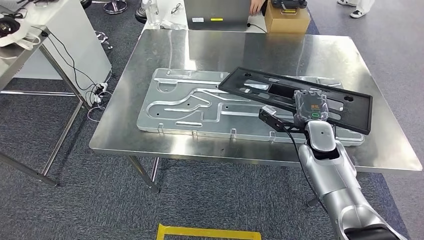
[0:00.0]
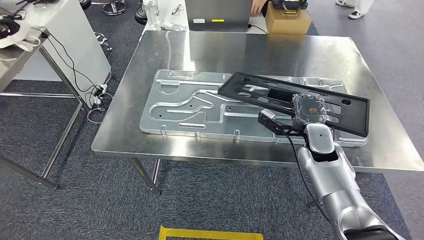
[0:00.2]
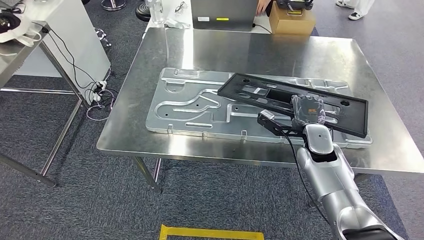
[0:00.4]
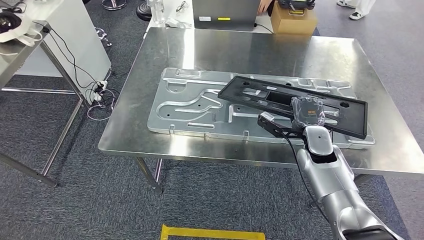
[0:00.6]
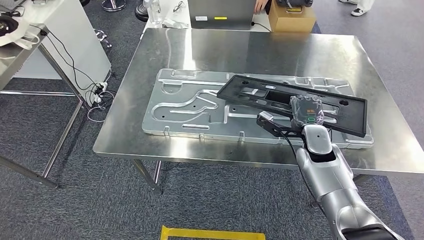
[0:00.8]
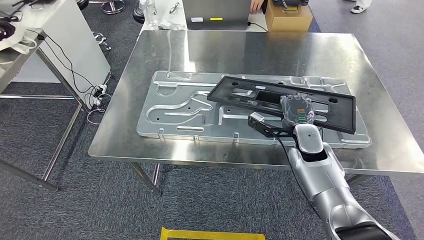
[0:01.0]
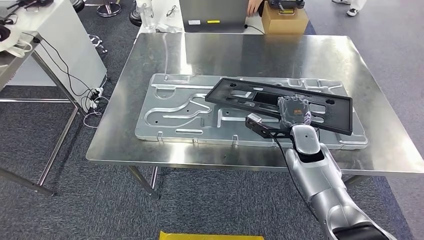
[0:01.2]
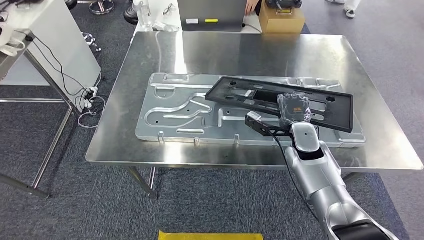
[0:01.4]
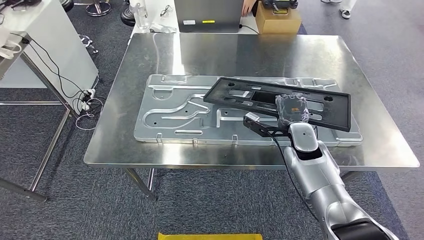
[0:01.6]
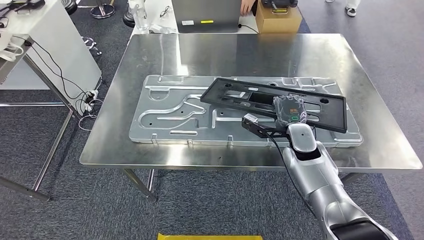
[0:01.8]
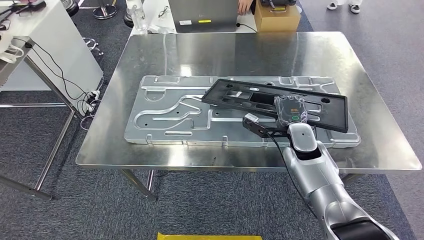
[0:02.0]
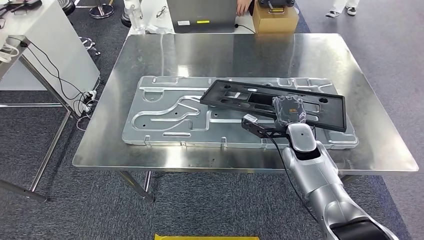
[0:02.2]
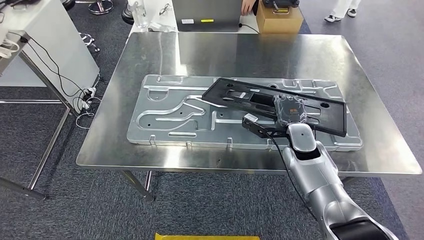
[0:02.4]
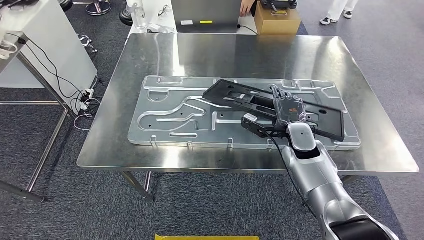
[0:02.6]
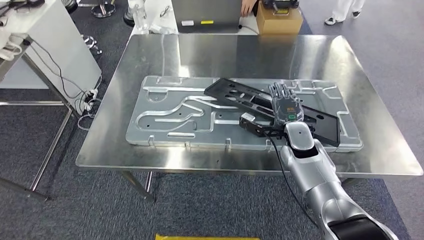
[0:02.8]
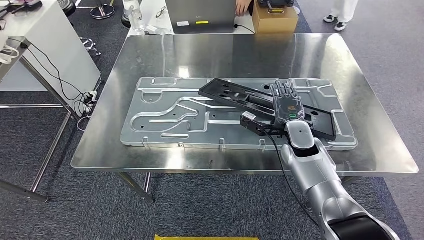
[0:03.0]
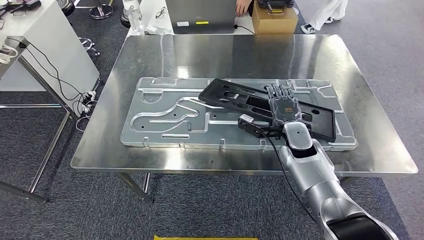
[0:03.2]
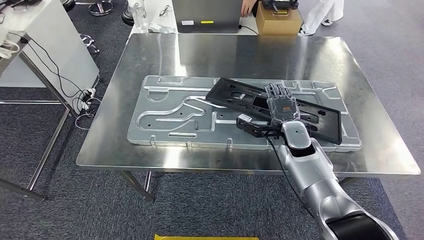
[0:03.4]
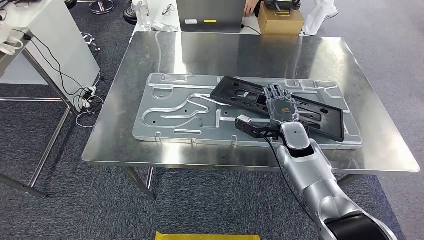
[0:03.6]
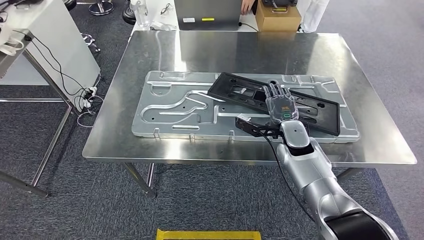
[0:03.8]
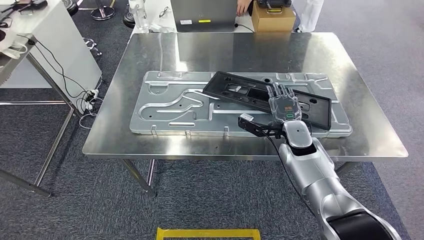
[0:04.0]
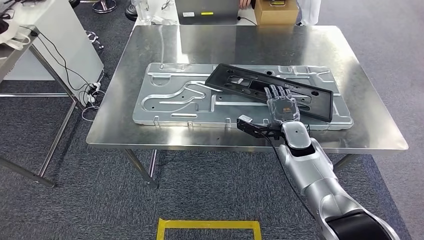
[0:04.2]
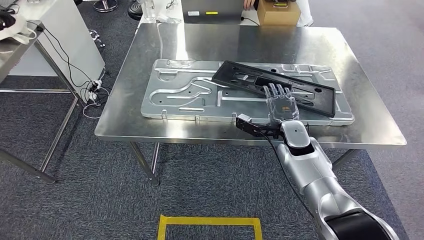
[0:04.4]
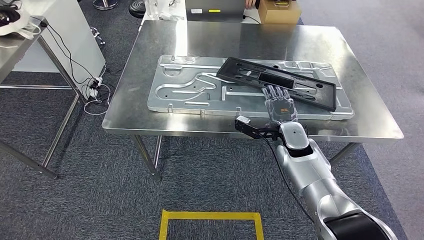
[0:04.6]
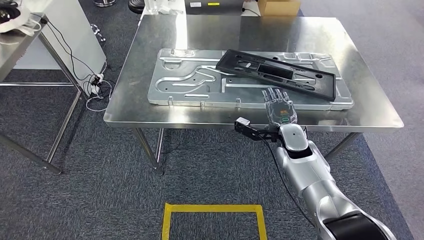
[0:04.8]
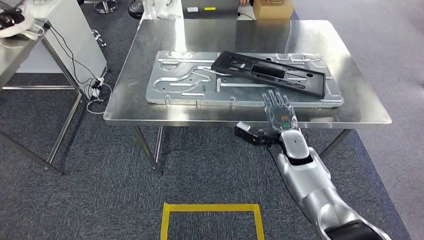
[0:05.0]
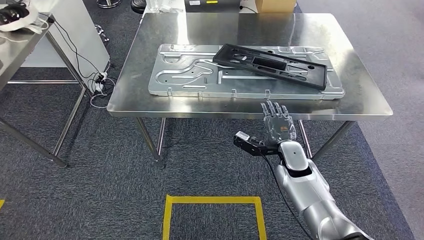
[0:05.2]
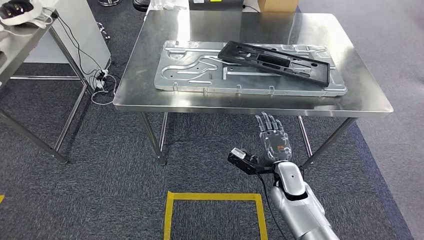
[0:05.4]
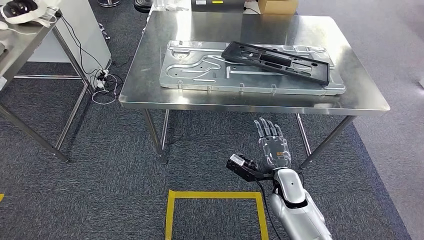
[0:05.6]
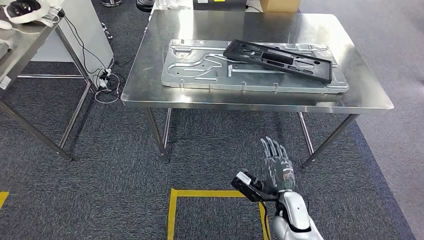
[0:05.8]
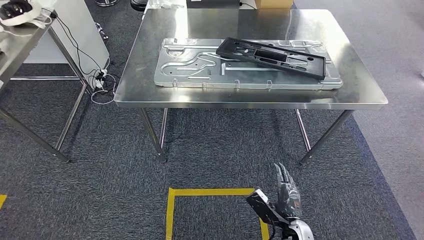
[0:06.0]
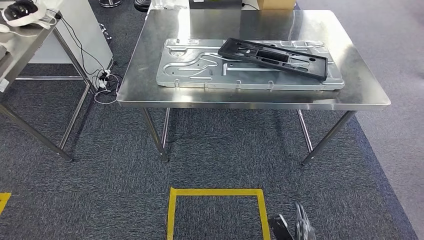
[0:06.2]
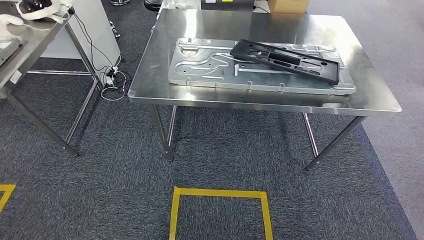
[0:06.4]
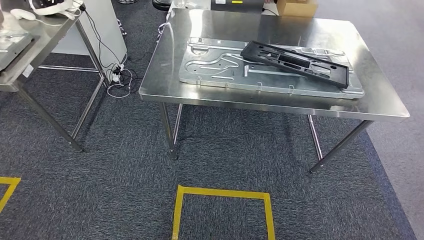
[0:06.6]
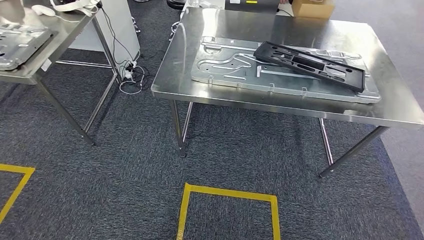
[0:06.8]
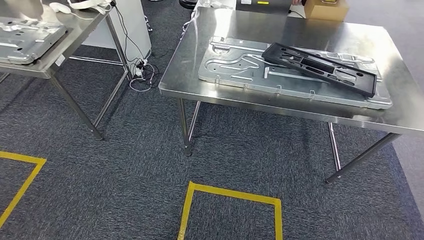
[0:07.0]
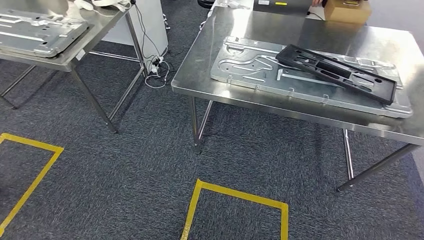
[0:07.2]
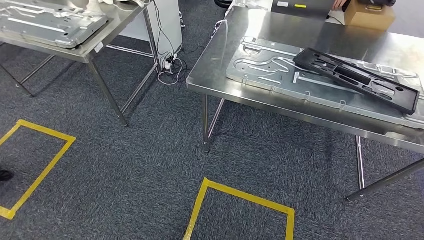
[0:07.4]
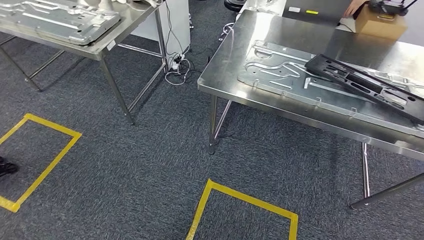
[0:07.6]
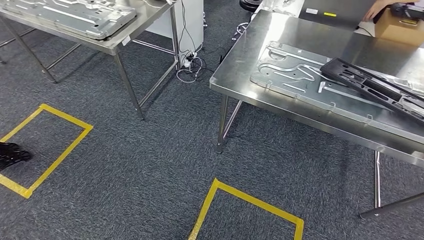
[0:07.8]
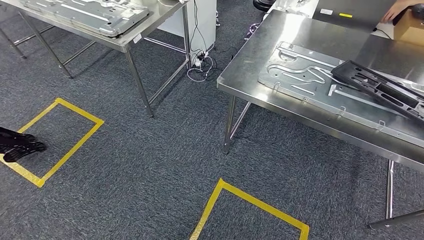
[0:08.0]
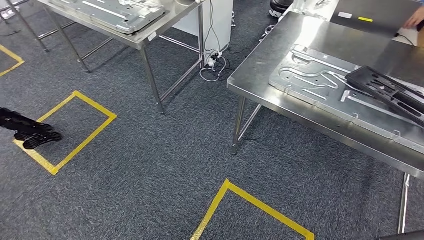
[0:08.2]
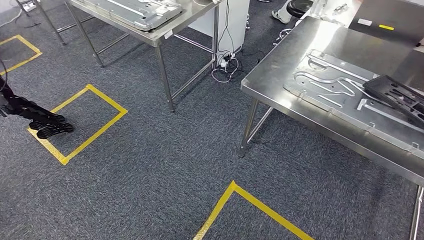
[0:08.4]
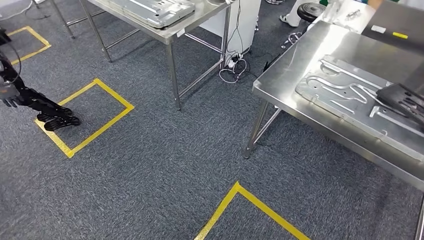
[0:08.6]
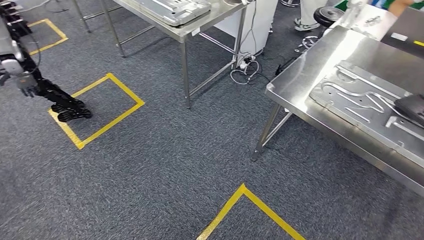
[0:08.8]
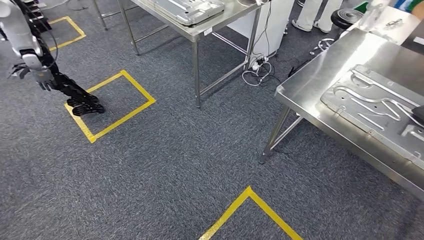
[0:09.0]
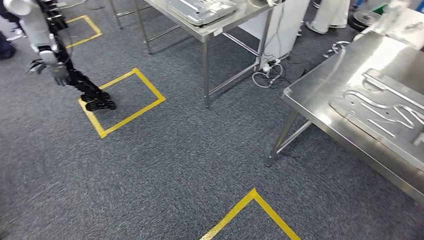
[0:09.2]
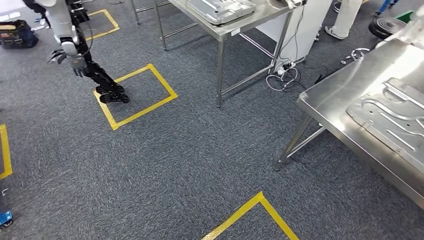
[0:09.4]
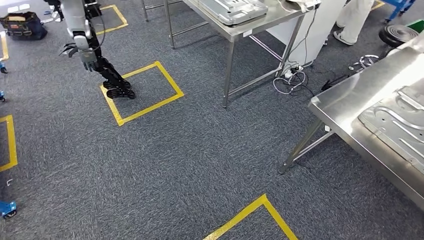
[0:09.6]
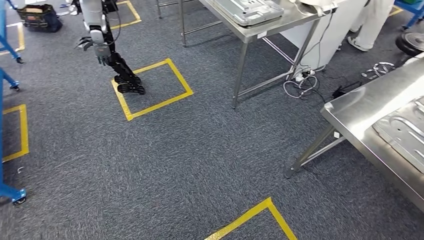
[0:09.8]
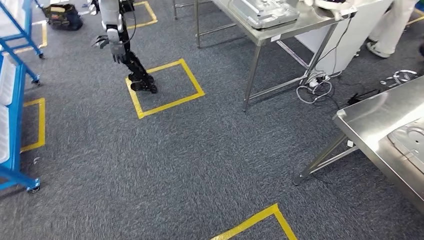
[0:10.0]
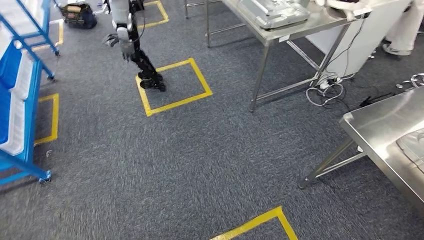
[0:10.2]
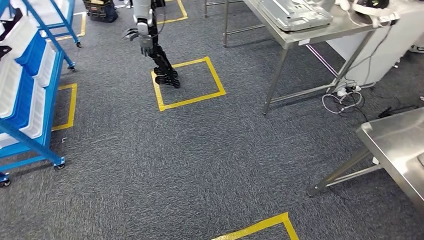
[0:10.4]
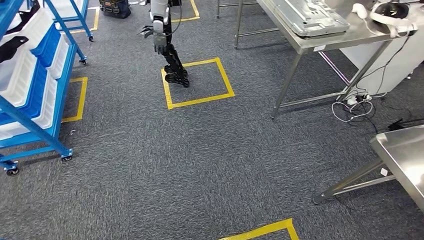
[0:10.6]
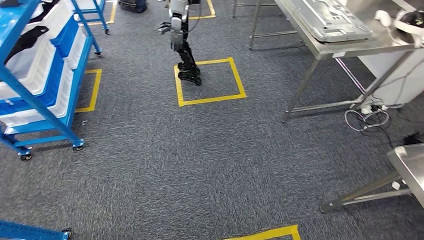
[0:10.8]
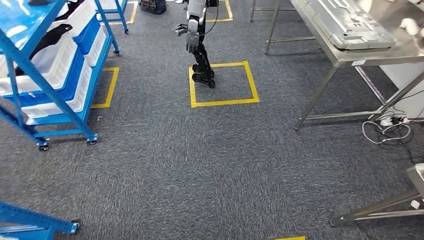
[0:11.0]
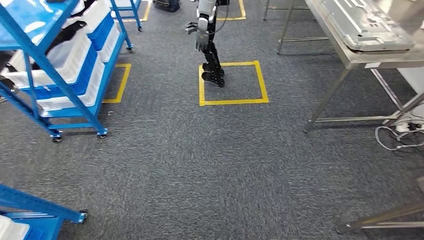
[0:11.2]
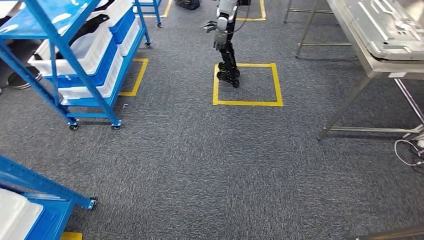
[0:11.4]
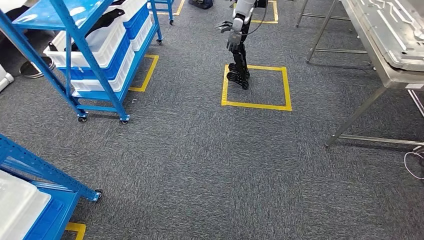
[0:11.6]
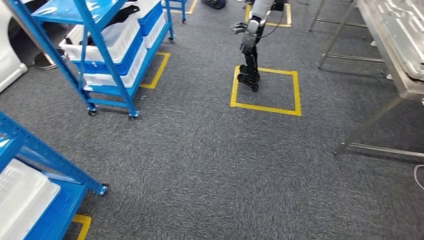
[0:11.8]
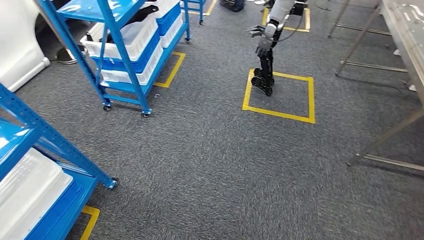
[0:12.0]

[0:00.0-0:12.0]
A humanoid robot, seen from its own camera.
Step, 0:00.0 to 0:05.8: Insert the large material into the corresponding slot on the workbench.

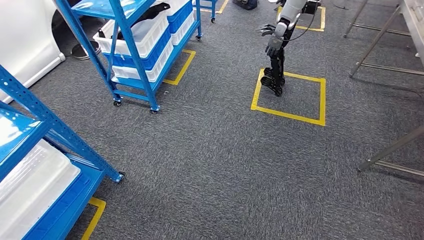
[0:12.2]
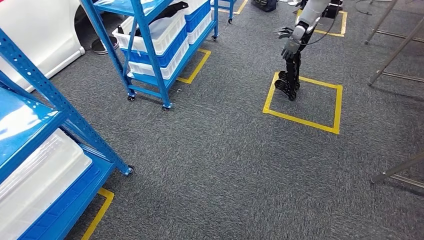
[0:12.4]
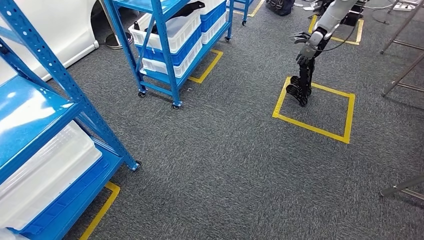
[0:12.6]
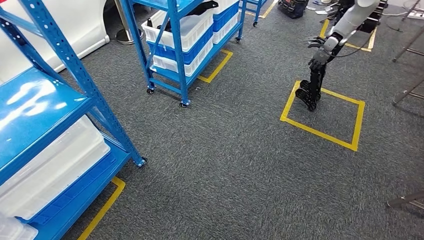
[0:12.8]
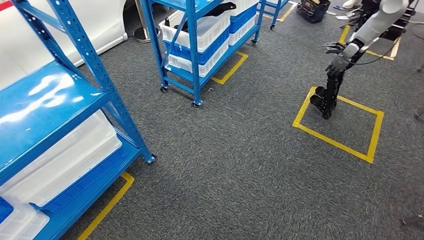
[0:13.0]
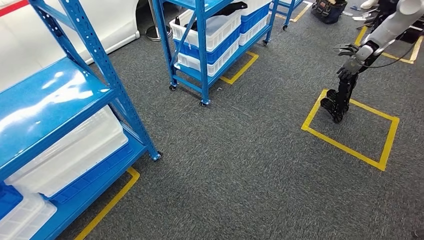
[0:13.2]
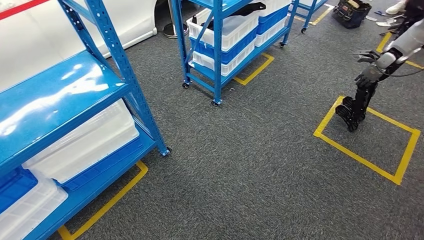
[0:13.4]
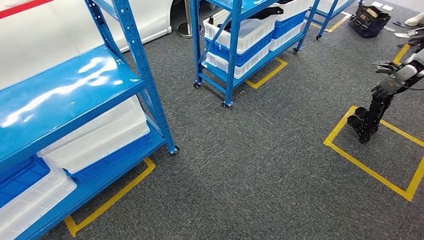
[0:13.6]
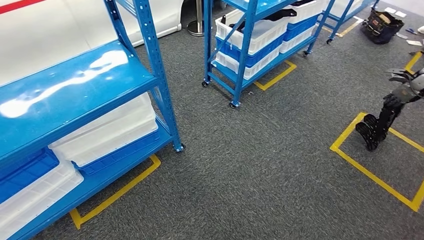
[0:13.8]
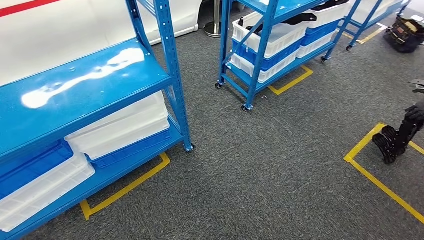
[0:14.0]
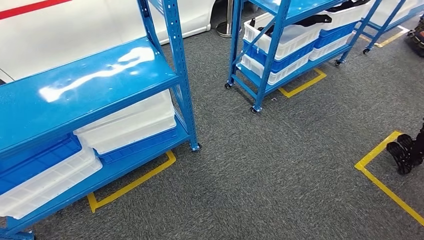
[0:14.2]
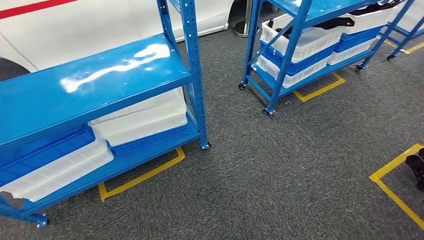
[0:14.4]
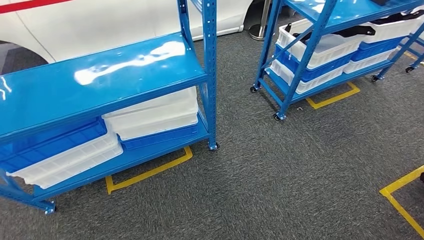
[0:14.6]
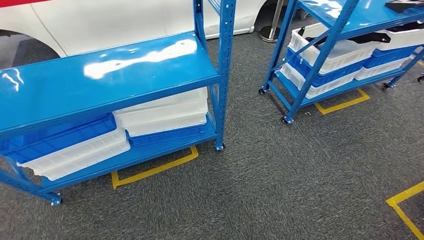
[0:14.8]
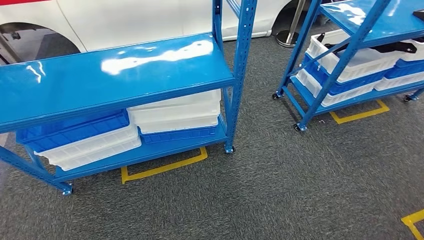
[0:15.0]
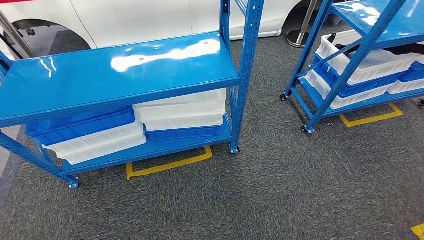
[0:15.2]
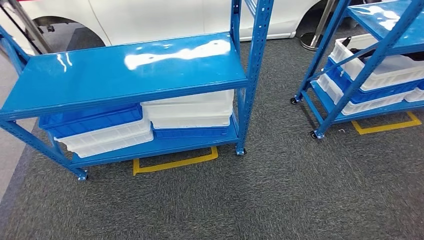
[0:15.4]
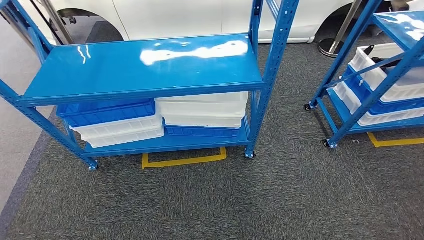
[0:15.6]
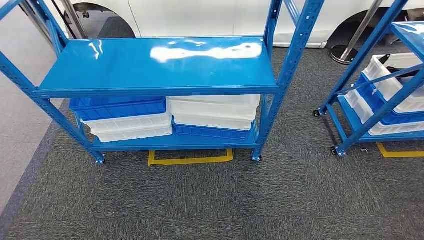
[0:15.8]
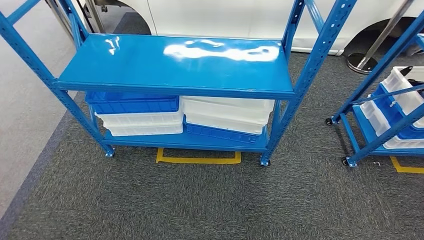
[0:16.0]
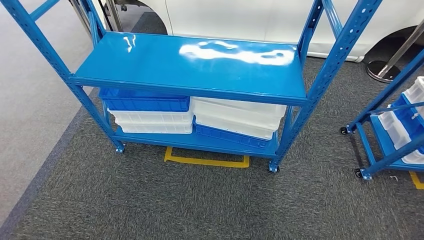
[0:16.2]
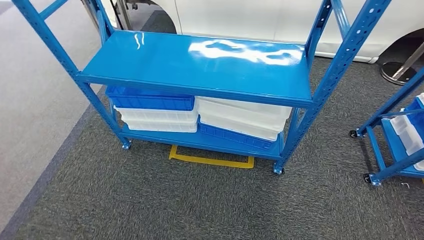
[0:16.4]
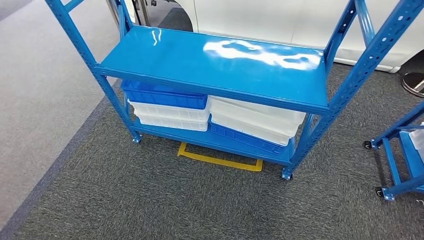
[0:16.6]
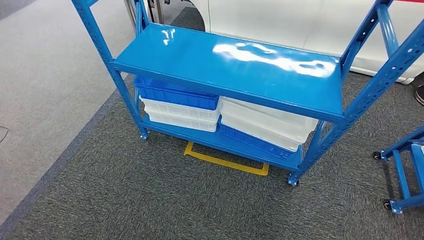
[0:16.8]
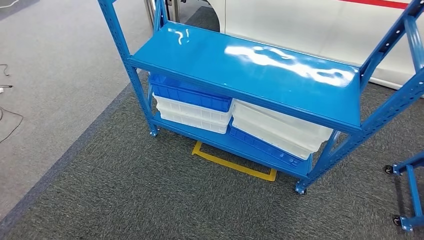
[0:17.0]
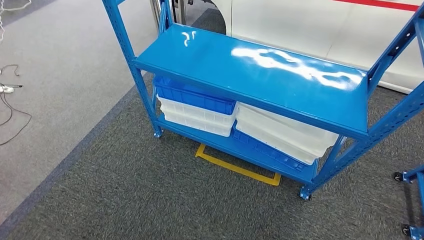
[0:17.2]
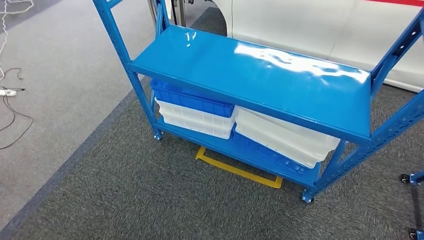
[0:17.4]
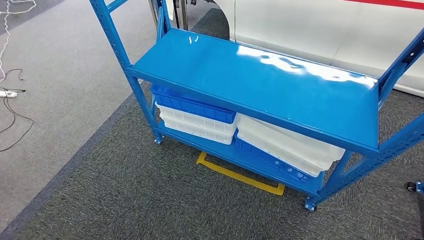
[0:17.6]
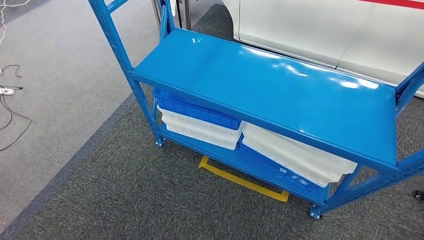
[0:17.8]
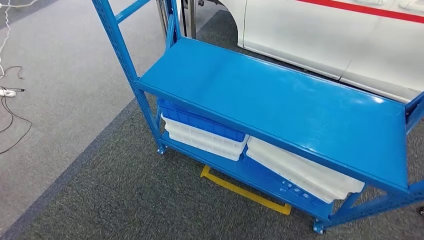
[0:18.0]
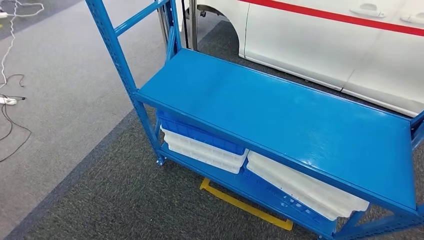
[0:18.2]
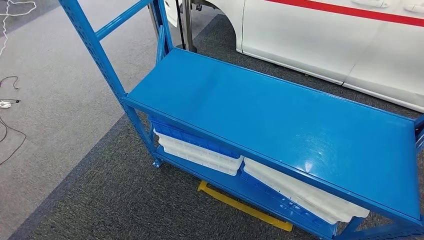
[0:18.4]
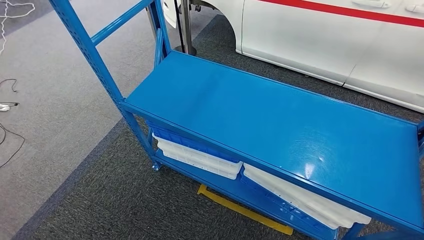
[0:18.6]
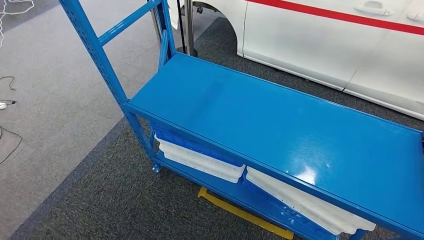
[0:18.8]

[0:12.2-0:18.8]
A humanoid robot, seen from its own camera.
Step, 0:12.2 to 0:18.8: Move to the initial position of the shelf.
